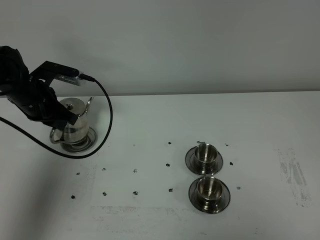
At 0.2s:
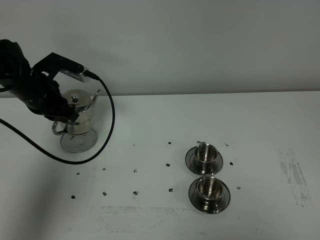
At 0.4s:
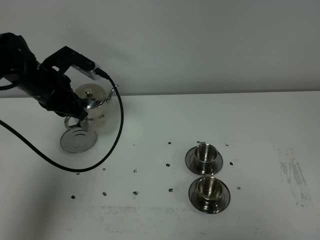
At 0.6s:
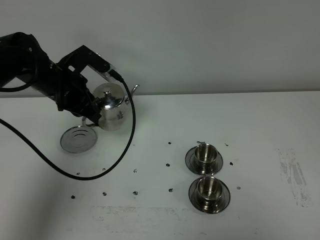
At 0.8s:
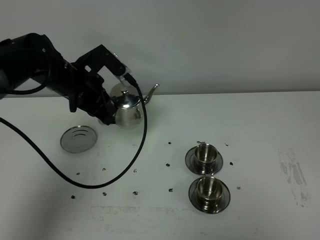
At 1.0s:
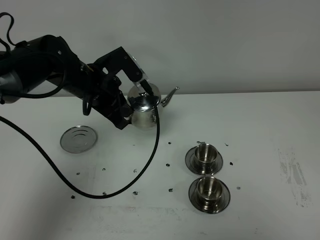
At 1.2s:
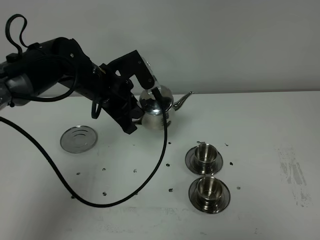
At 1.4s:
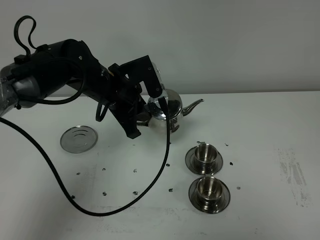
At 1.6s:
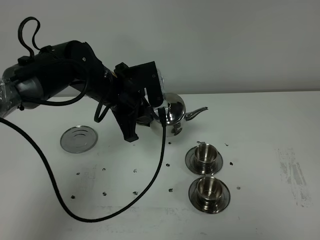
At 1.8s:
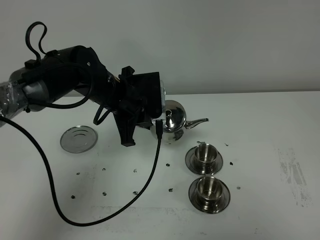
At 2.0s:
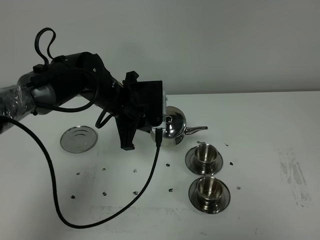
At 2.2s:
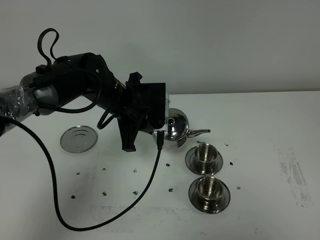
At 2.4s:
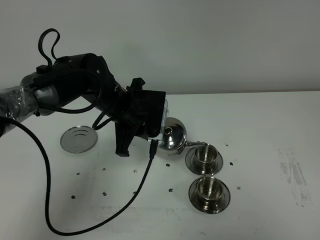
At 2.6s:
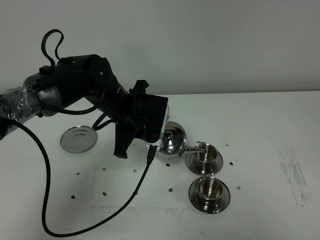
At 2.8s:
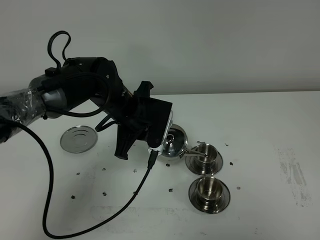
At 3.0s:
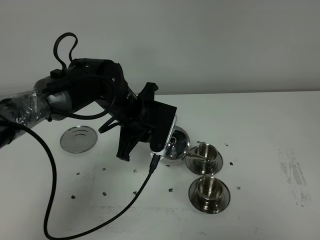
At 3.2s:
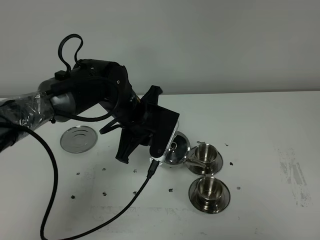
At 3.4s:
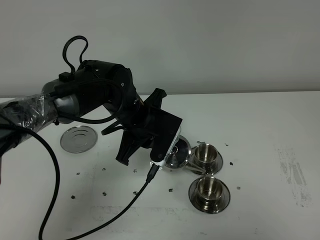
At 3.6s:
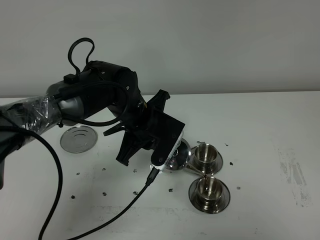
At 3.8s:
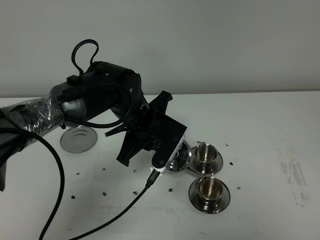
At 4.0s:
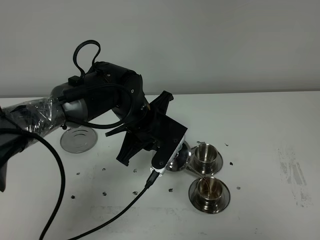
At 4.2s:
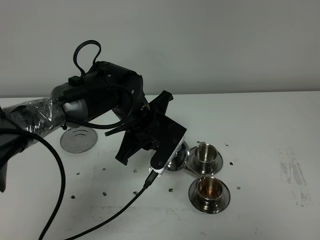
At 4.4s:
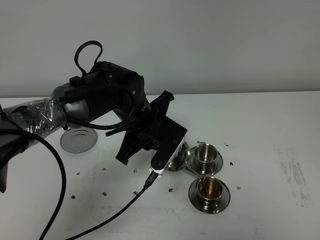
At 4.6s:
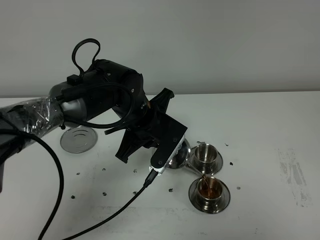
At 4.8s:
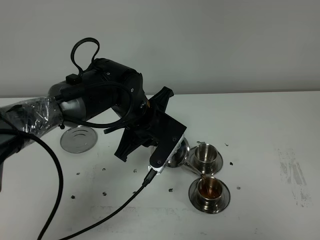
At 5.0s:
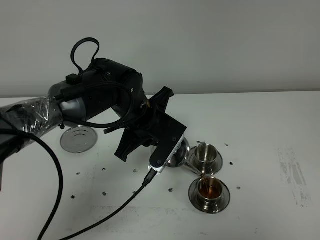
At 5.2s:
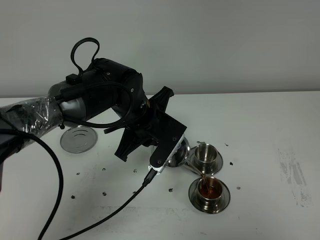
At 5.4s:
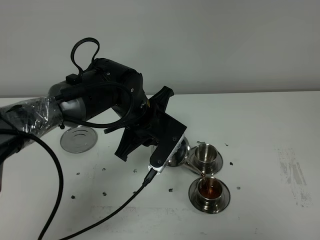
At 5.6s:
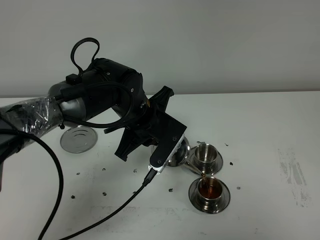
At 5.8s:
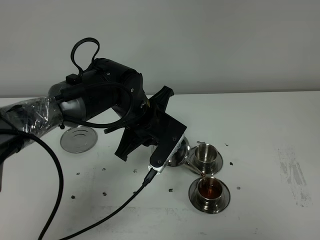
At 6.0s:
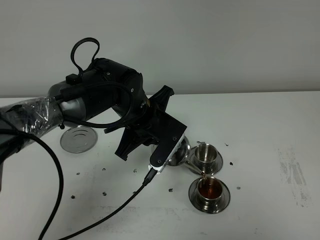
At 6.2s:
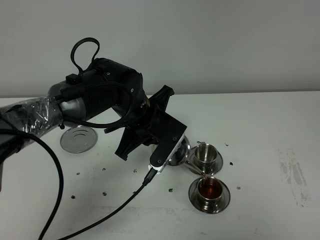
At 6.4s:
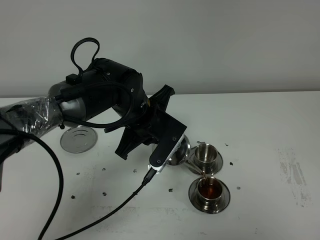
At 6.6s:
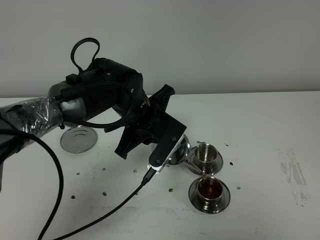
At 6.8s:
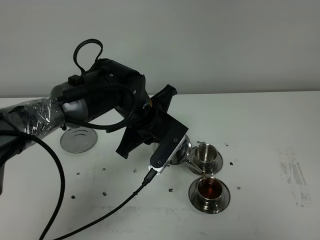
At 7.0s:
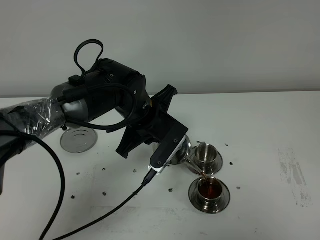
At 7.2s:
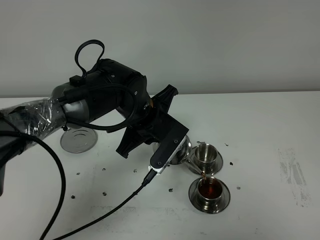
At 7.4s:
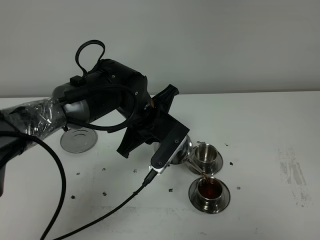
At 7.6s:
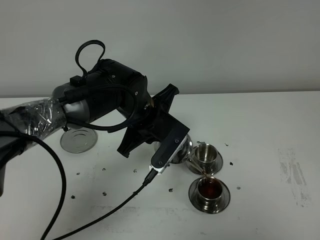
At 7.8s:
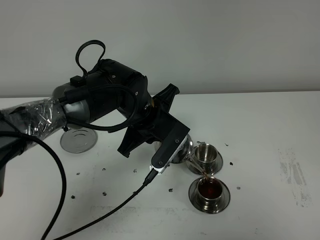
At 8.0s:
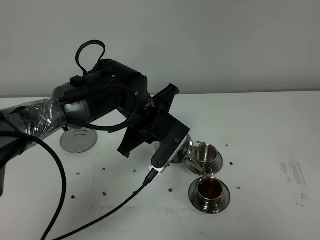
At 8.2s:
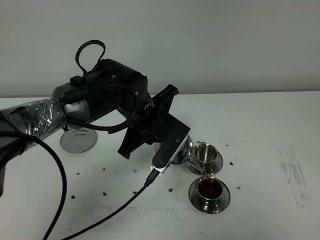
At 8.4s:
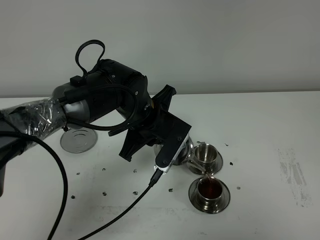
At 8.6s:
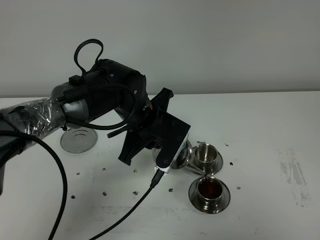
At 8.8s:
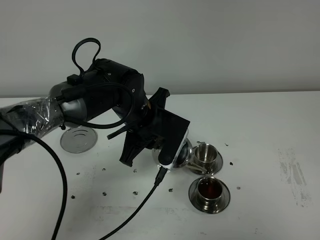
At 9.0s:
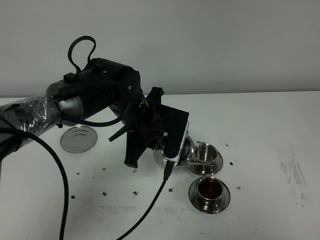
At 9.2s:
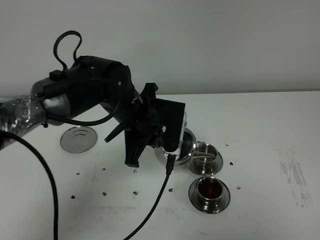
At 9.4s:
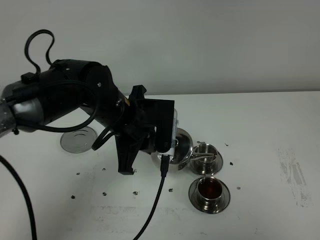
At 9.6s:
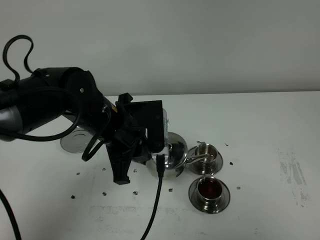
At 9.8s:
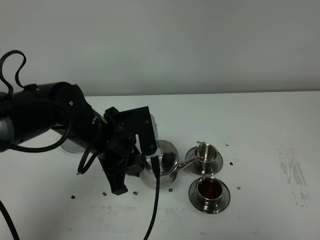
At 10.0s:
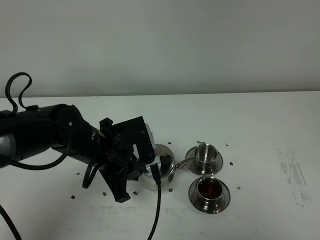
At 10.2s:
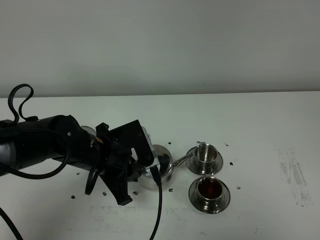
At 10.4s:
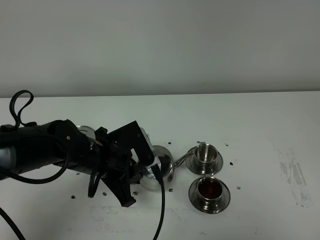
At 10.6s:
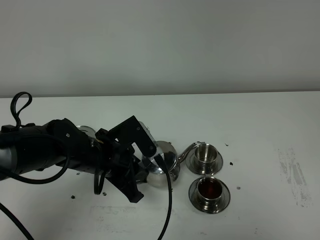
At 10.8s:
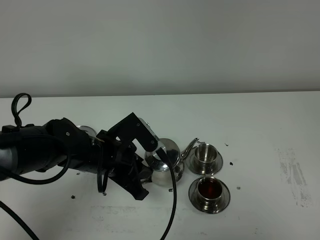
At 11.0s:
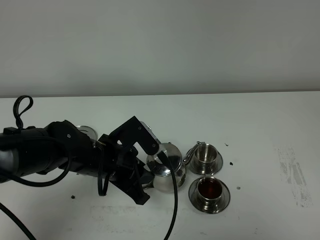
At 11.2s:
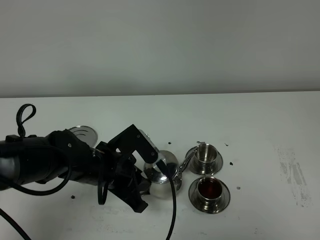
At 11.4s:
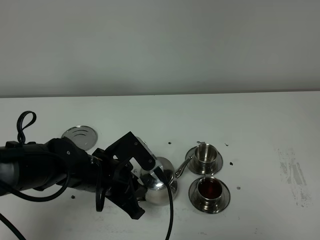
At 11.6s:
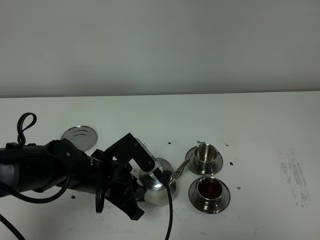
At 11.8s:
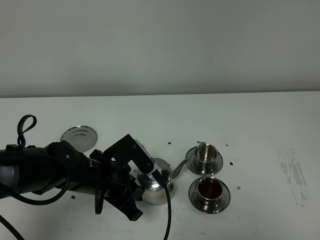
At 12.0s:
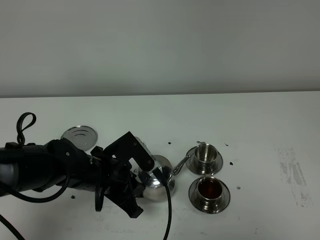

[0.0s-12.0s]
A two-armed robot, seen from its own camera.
Task of the whole recording: grasp the stainless steel teapot and pour the tea into the two stainless steel teacups one by one, put the stainless steel teapot back in its original place.
0.0s to 1.6s: The left gripper shifts roughly 15 cm to the right.
3.0s to 4.4s: The grippers move only a little.
4.4s to 6.0s: The two grippers keep their place.
6.0s to 7.6s: Neither gripper changes place.
9.0s to 10.4s: The left gripper shifts about 10 cm to the left and backward.
10.4s to 12.0s: The grippers move only a little.

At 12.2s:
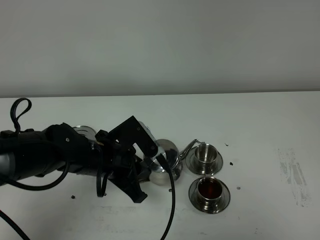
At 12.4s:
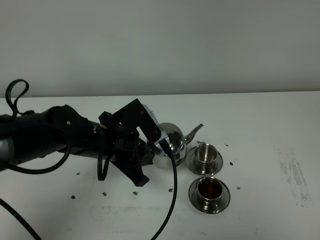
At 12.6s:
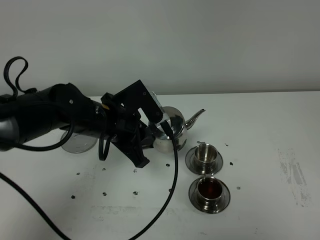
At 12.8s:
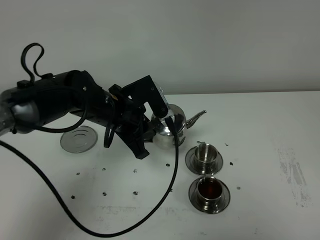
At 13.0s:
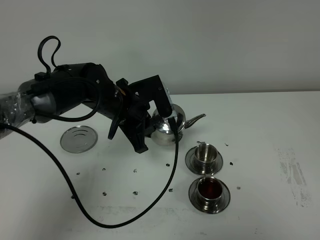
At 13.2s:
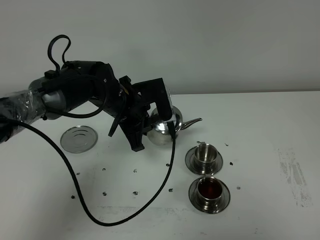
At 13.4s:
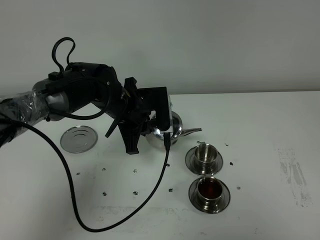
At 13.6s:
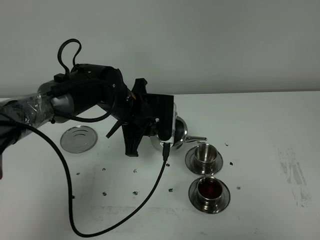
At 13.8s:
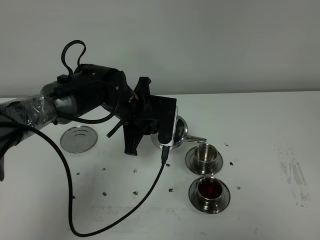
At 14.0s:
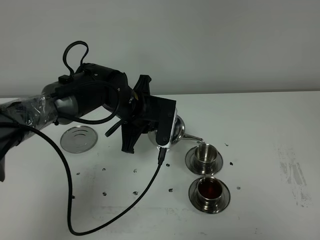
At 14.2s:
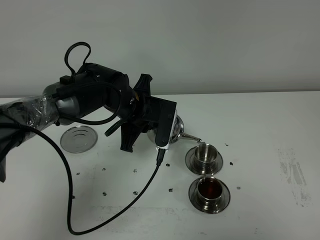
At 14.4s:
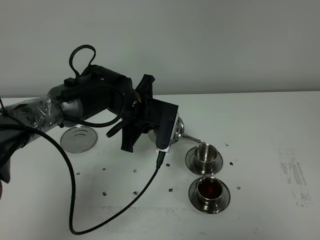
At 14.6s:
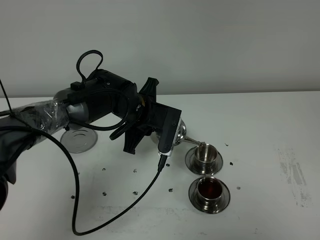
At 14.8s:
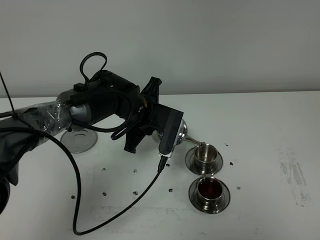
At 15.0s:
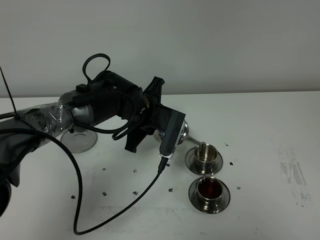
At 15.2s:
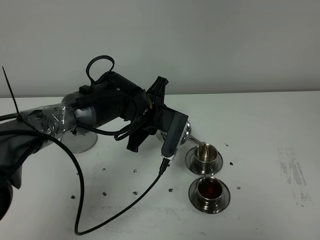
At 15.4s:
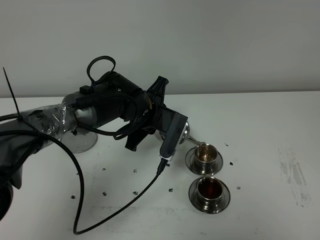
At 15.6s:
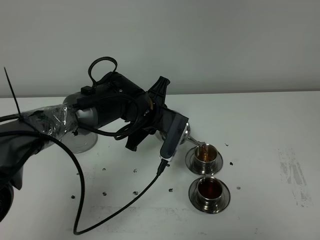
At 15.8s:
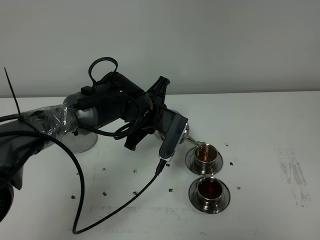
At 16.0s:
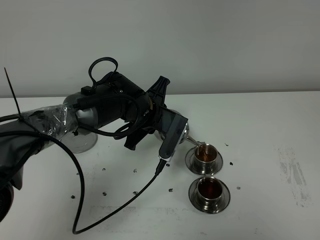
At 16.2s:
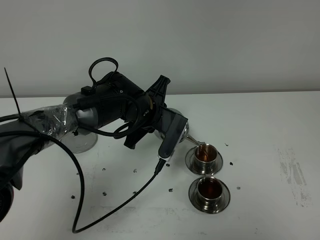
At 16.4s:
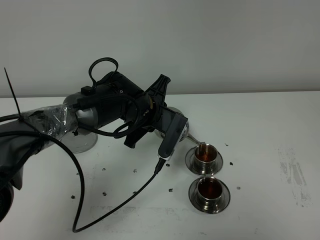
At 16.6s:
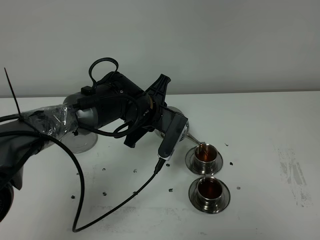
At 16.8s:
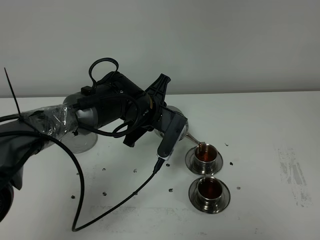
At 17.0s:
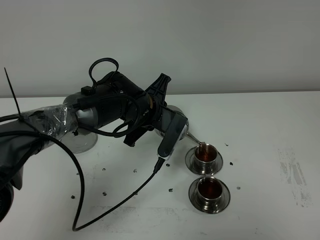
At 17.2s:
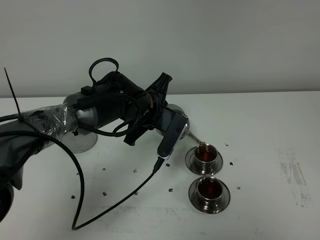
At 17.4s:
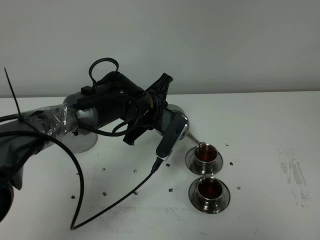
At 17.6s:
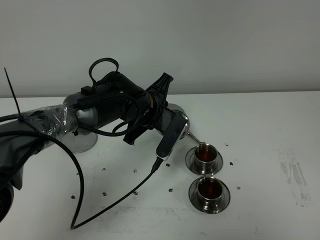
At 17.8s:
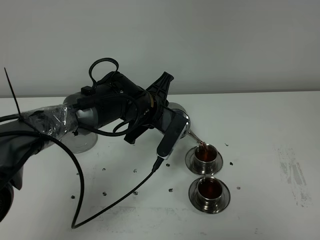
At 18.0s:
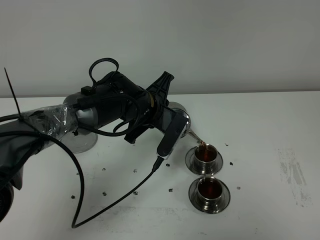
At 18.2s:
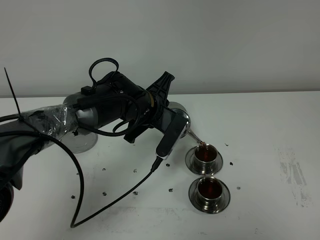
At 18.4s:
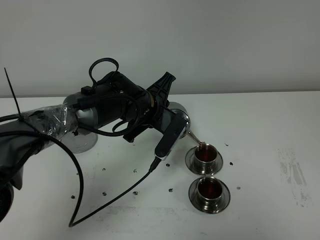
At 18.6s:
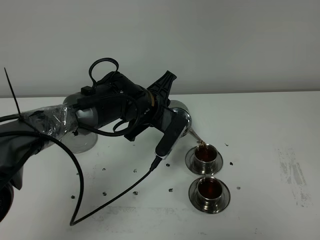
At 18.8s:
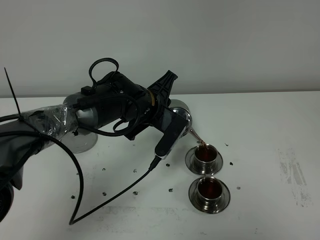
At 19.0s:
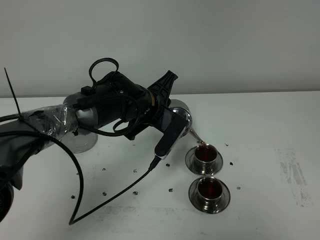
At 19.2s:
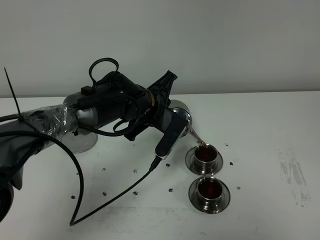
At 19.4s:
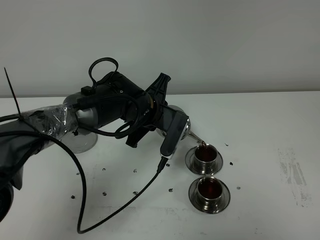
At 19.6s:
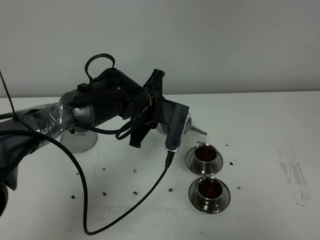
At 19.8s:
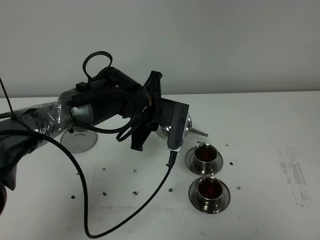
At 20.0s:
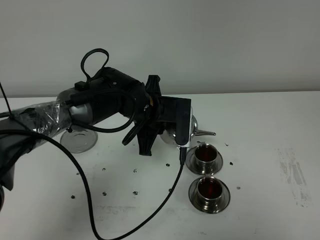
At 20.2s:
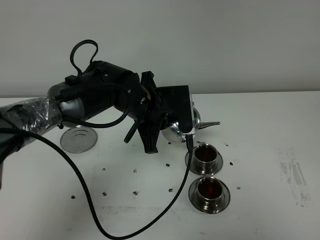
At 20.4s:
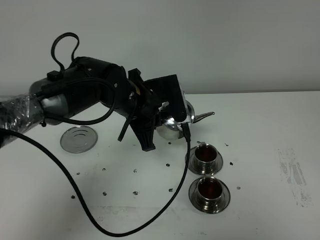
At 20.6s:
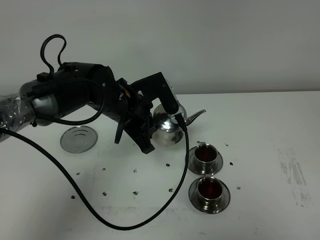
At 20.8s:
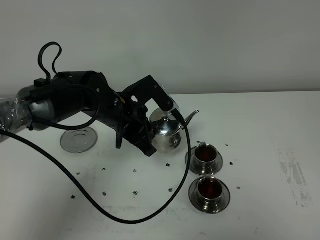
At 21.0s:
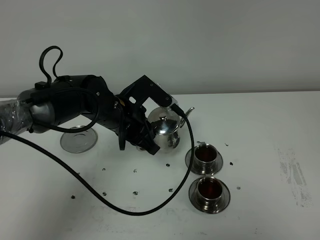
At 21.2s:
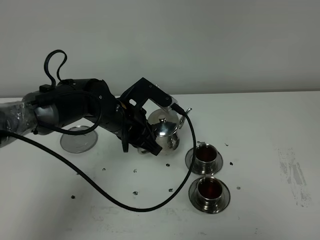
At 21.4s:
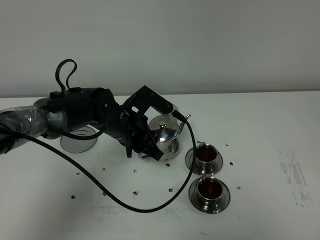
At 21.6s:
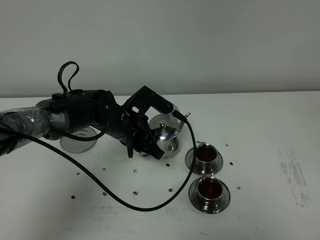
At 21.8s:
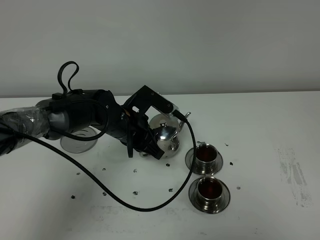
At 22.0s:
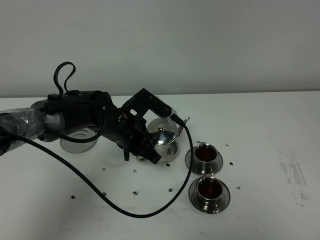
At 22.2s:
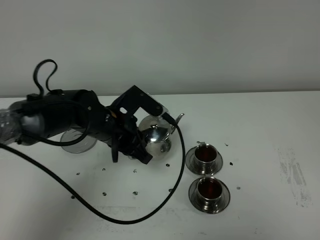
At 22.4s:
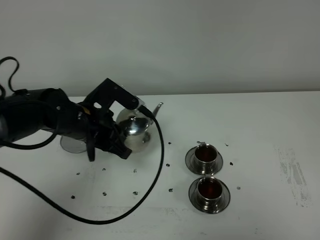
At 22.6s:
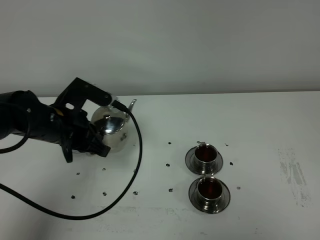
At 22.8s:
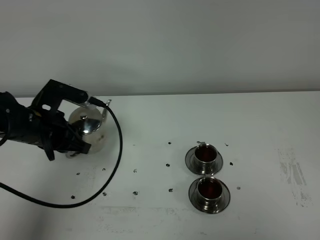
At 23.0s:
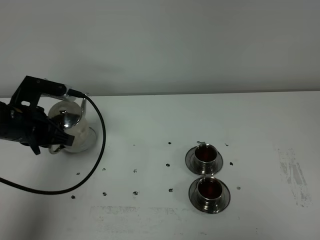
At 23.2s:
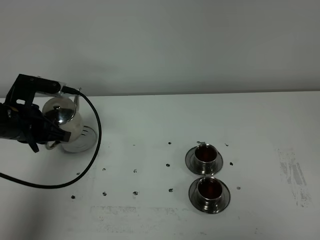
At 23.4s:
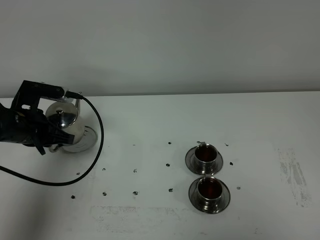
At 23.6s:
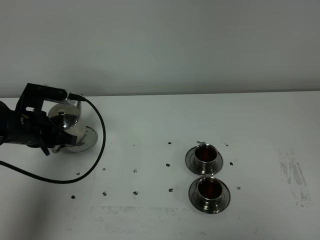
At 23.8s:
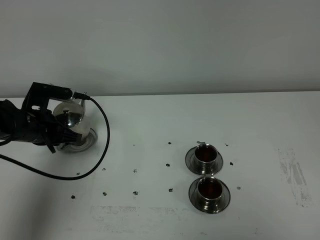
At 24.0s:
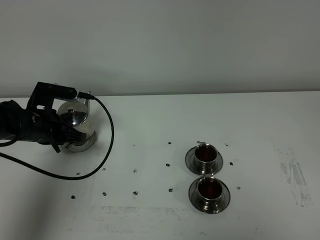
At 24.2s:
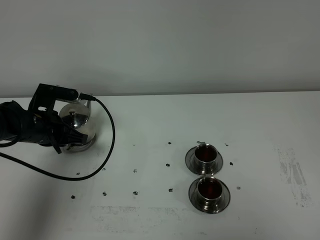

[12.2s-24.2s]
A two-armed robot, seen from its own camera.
Task of the whole recording: grasp the stainless steel teapot and pour the tea into the two stainless steel teacups one by one, put the stainless steel teapot back in its original place.
Step, 12.2s to 19.4s: Pour tea into the teacup with the left gripper.
12.2s to 13.8s: The left gripper travels forward by some 10 cm.
13.8s to 15.2s: The grippers stay close to where they were, moving slightly.
15.2s to 18.2s: The grippers move only a little.
19.8s to 21.2s: The left gripper ends up about 5 cm from where it was.
21.2s to 22.6s: The left gripper heads to the left, covering roughly 10 cm.
22.6s to 24.2s: The left gripper heads to the left and downward, covering roughly 10 cm.
